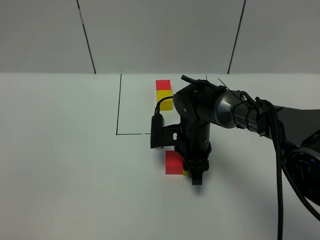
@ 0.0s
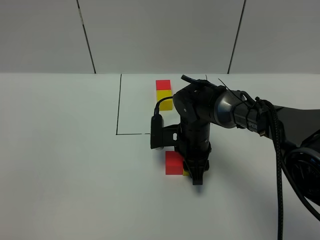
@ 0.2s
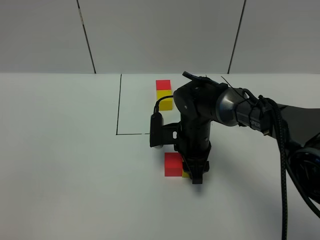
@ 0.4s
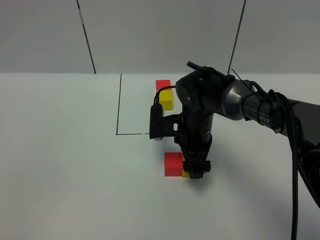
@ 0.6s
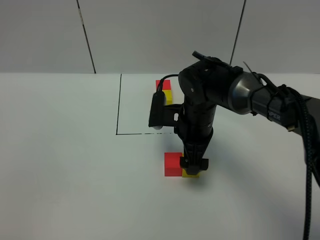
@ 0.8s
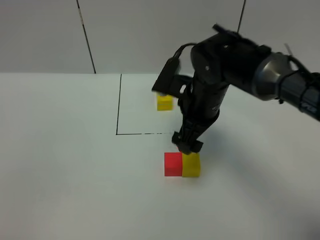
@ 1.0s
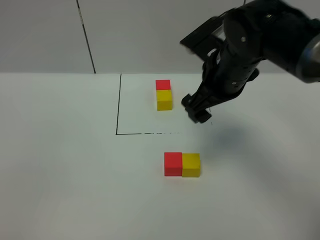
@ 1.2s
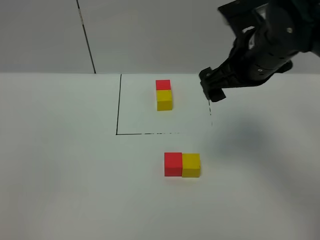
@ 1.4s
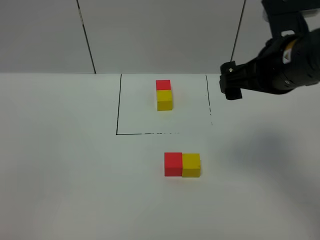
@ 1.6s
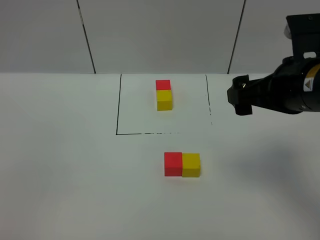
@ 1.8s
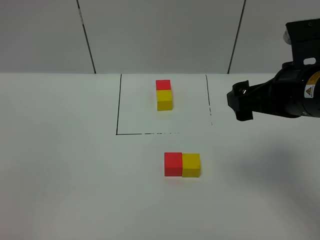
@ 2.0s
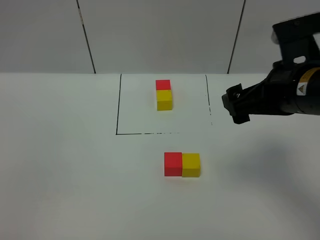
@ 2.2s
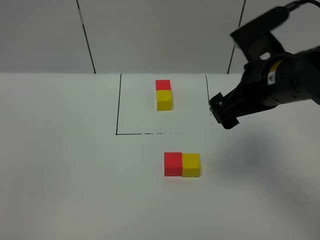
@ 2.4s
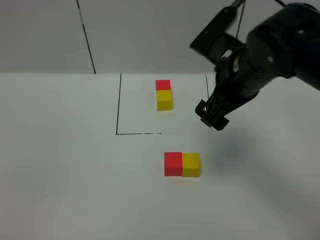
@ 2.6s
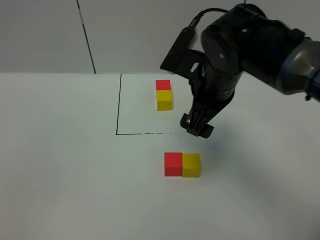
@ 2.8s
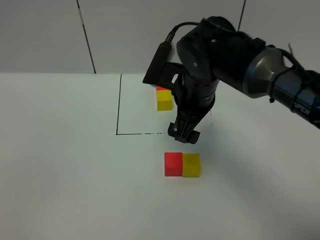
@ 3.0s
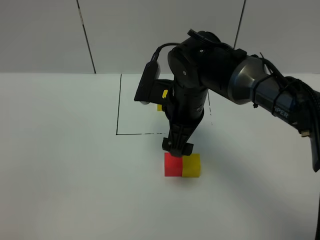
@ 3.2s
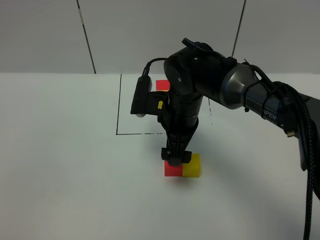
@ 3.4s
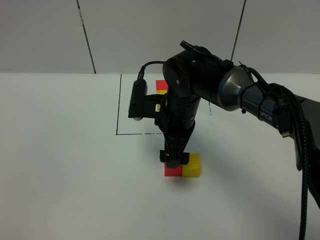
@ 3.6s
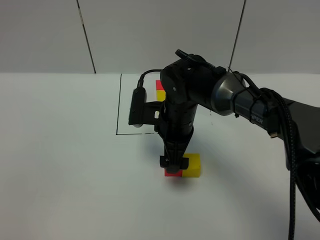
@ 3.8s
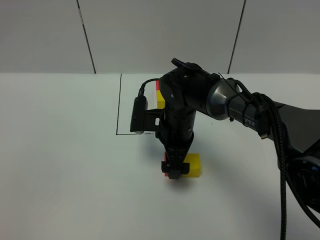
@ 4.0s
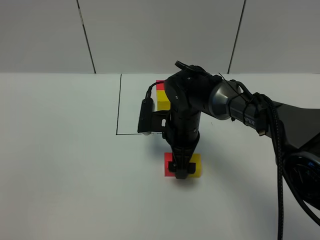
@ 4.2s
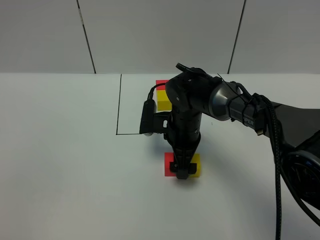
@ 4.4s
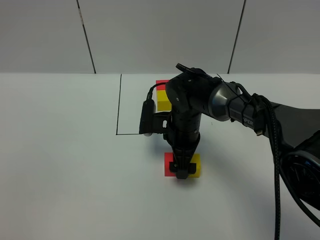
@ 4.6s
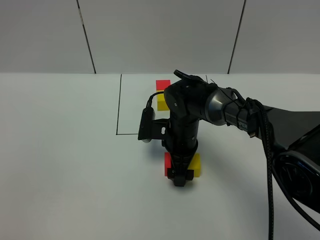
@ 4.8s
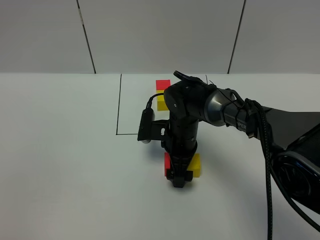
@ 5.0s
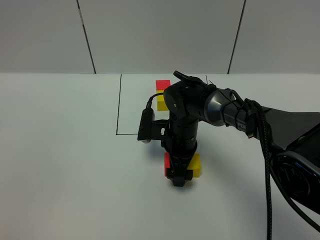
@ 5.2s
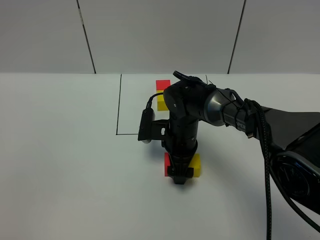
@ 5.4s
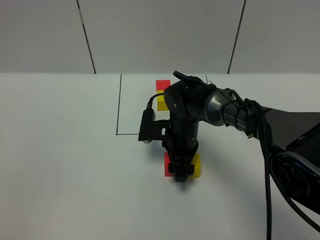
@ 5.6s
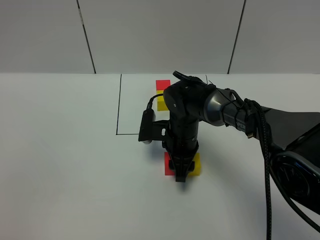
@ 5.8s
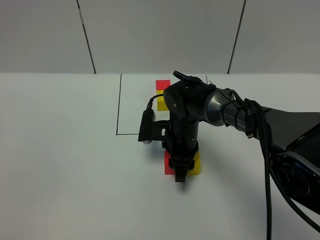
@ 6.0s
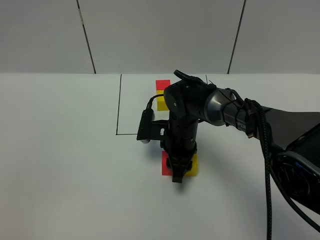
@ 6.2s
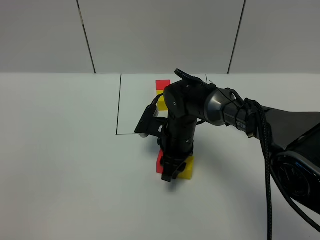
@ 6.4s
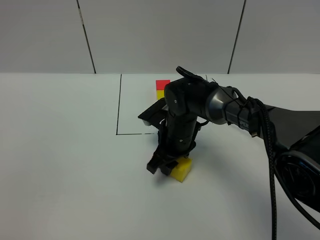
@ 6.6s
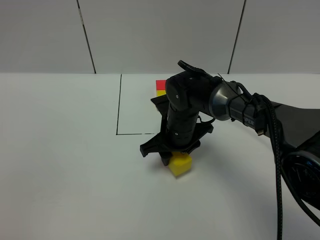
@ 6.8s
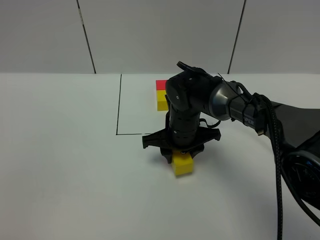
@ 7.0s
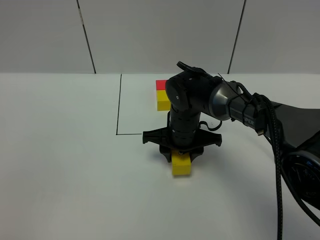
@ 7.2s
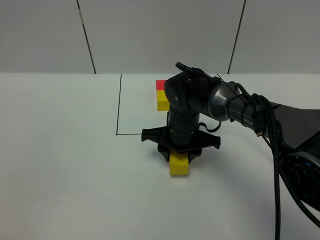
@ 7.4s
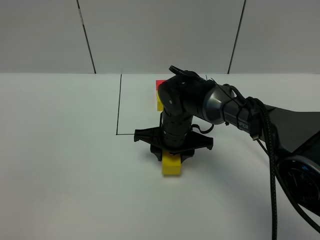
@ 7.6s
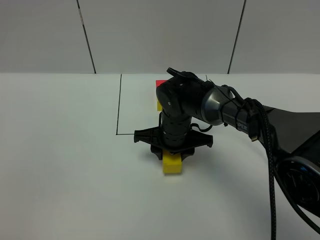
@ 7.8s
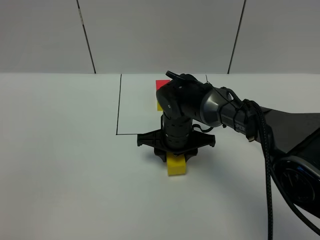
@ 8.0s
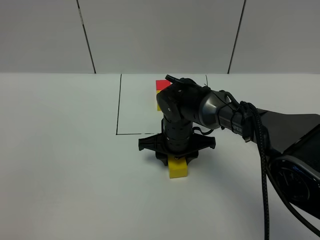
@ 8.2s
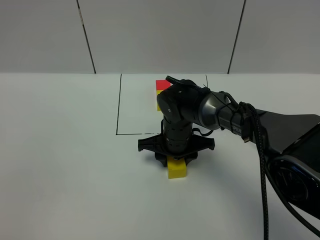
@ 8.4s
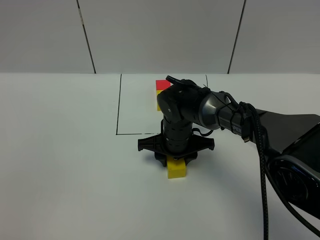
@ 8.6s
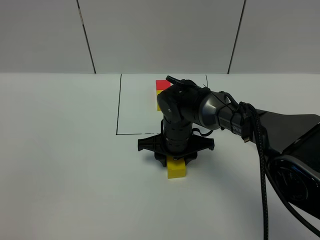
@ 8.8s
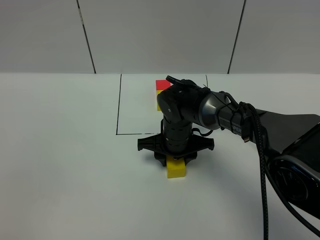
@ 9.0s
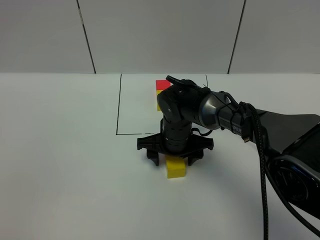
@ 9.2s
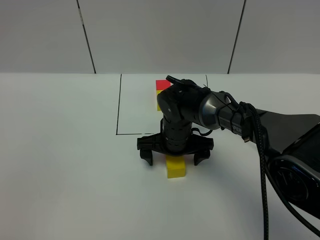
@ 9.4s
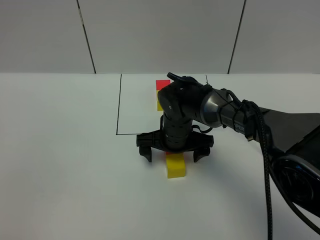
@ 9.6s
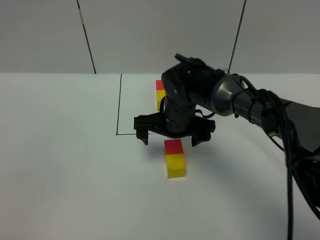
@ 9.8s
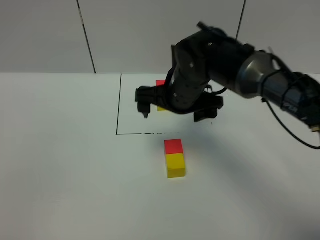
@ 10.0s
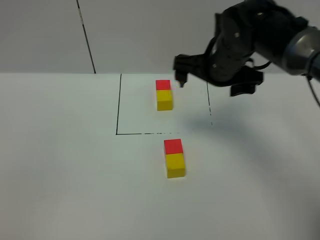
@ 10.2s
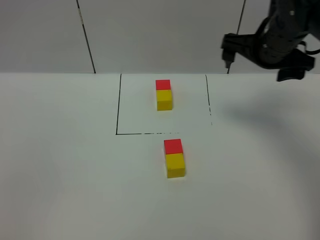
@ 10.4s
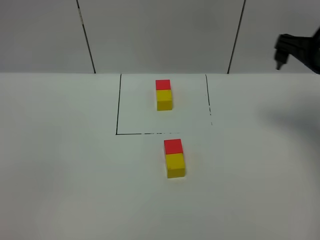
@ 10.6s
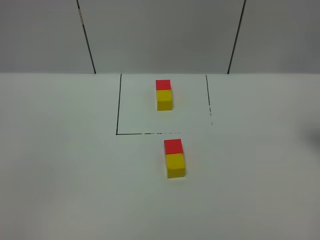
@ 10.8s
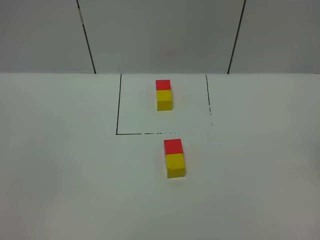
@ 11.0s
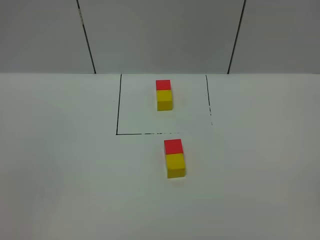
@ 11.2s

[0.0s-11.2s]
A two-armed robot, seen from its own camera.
Task of the whole recording: According to the building block template in front, assemble the scattered blocks together.
Step, 1.0s to 9.6s: Adjust the pose of the building blocks.
0.0s to 1.6s: The right gripper travels upward and to the right by about 25 cm, and opens its fingers.
1.6s to 3.2s: The right gripper heads to the left, downward and forward, covering some 20 cm.
3.2s to 4.8s: The right gripper goes roughly 10 cm downward.
4.8s to 6.4s: The right gripper closes up.
8.0s to 9.6s: The right gripper opens its fingers.
9.6s to 11.2s: The right gripper shifts about 40 cm to the right, backward and upward.

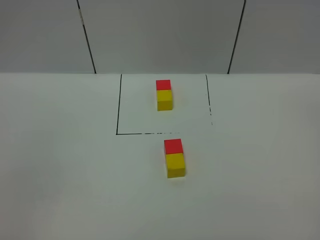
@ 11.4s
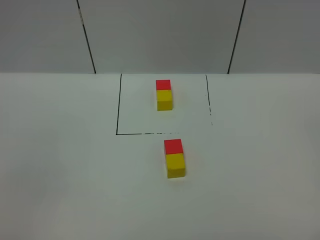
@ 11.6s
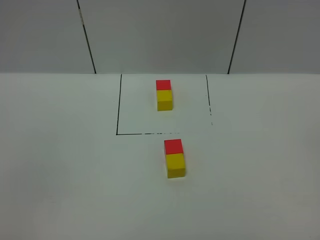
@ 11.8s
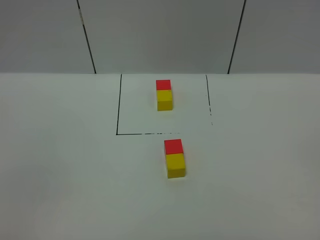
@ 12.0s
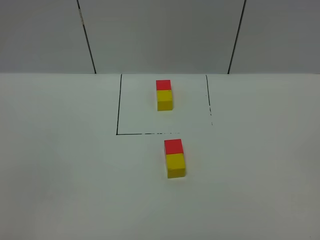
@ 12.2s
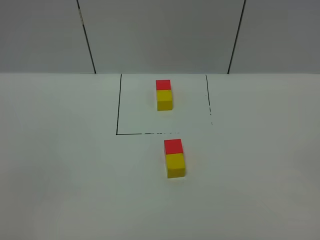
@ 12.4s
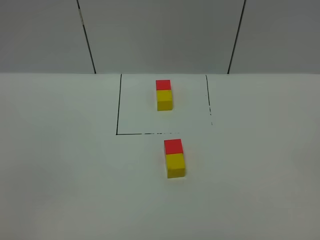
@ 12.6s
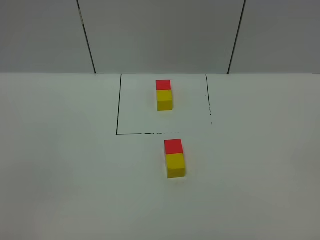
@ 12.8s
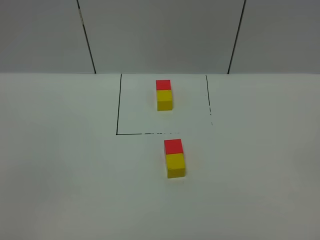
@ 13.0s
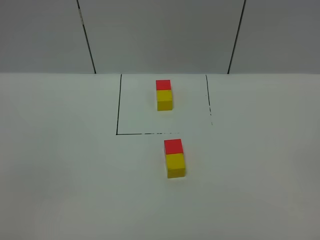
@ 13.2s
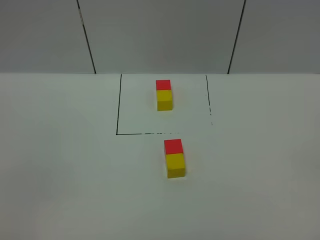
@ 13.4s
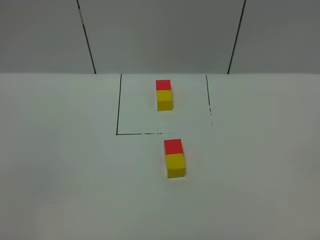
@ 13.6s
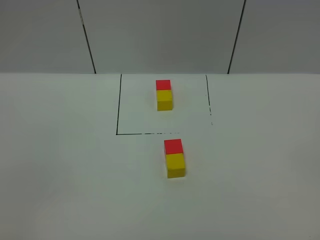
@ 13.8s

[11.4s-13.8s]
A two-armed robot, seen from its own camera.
Task of the whole recording: According to the building block template in front, assemble the scattered blocks together.
12.6s to 13.8s: Both grippers stay put.
